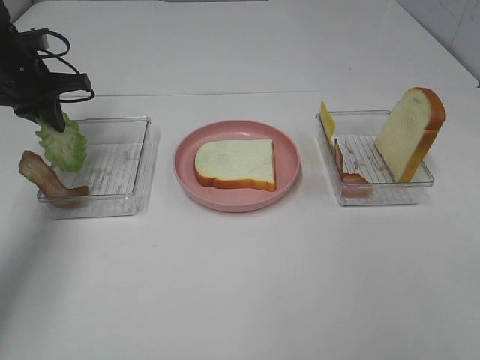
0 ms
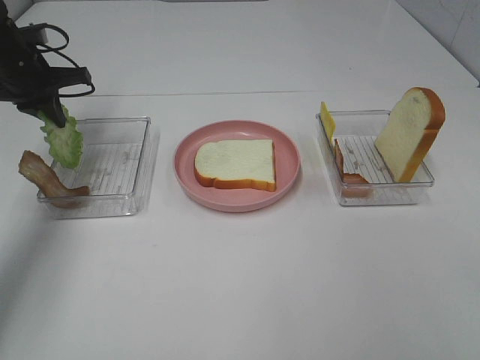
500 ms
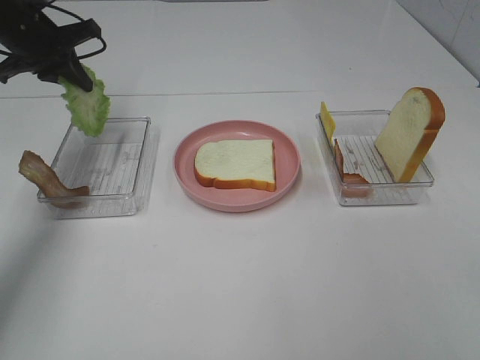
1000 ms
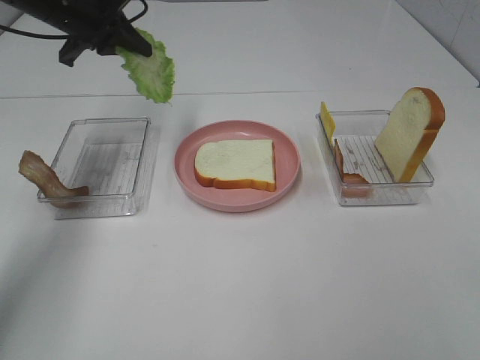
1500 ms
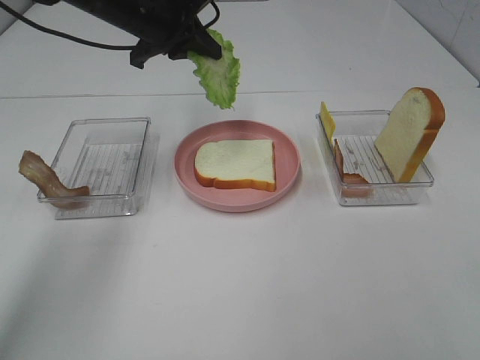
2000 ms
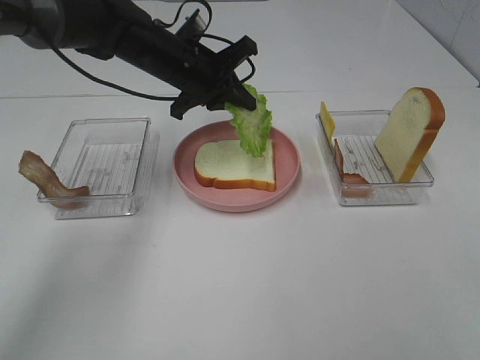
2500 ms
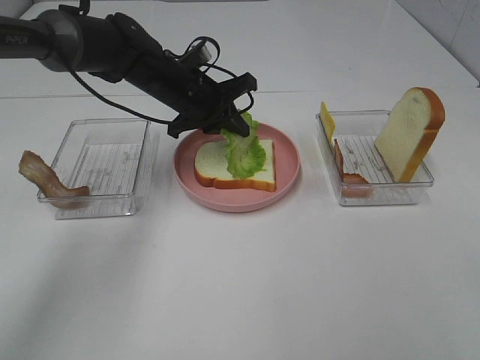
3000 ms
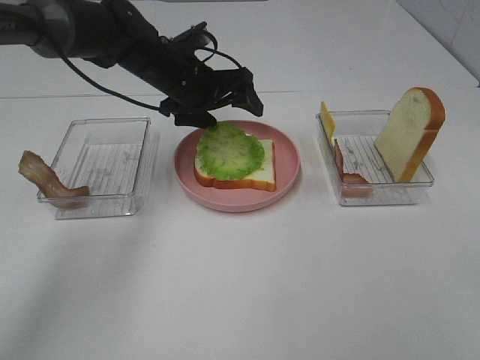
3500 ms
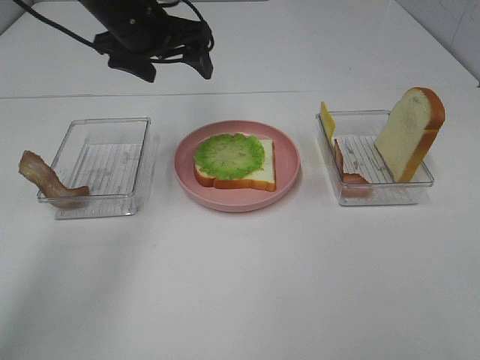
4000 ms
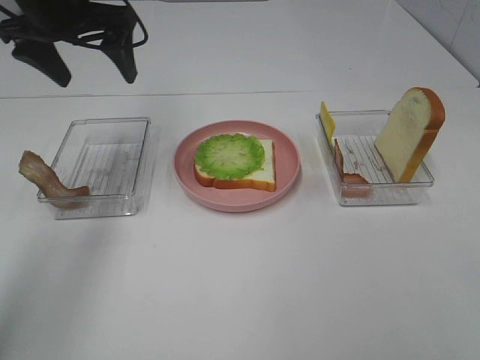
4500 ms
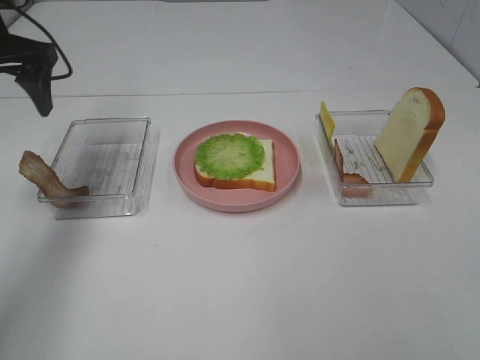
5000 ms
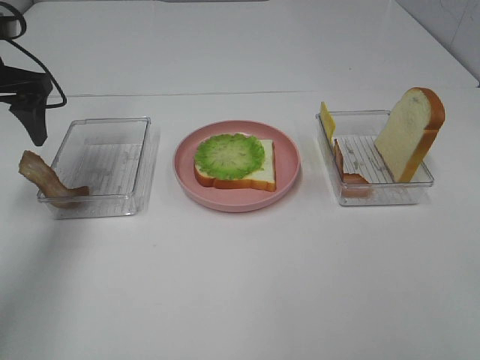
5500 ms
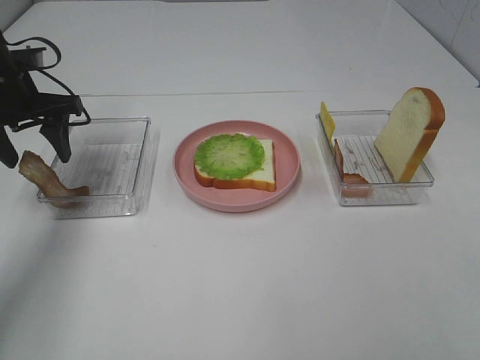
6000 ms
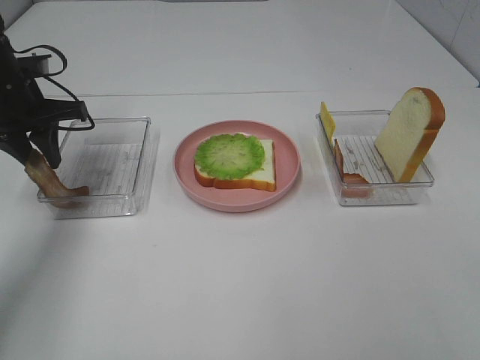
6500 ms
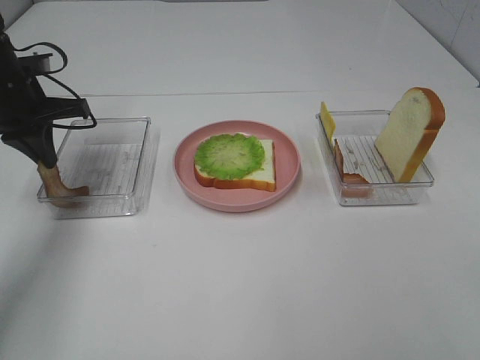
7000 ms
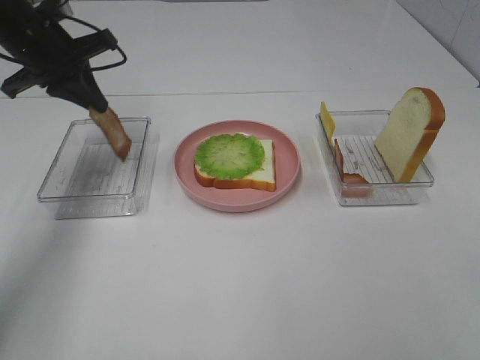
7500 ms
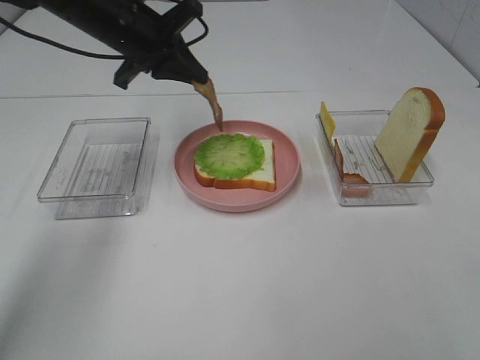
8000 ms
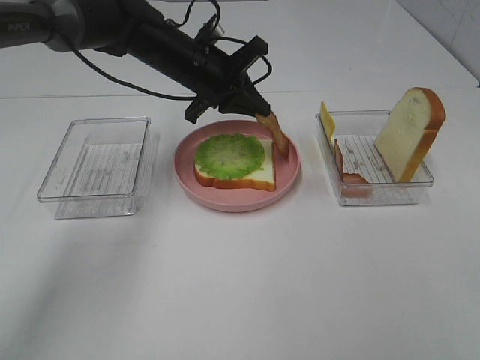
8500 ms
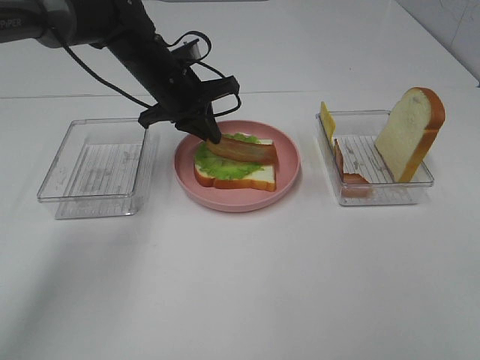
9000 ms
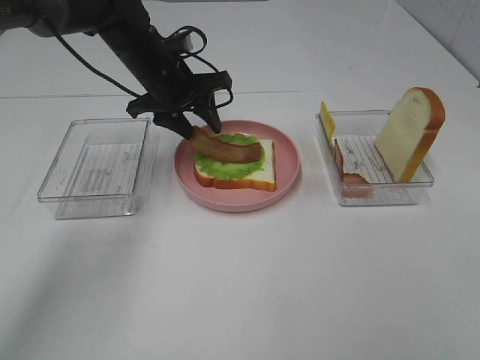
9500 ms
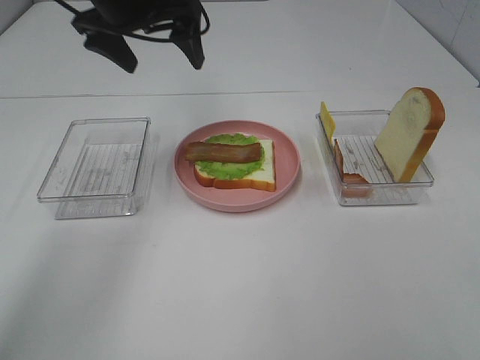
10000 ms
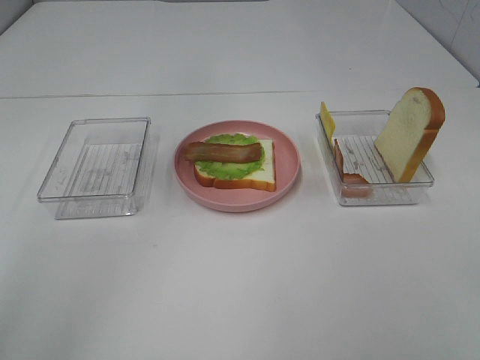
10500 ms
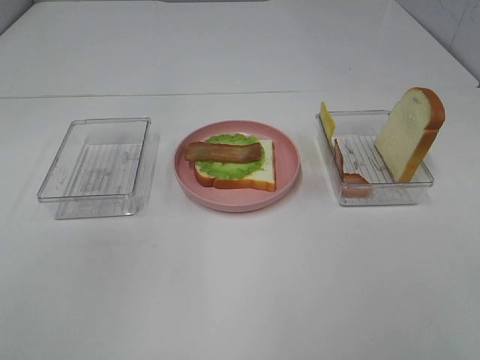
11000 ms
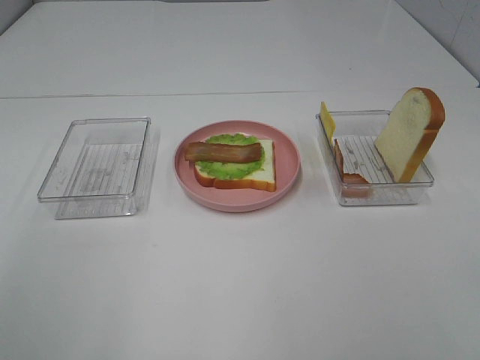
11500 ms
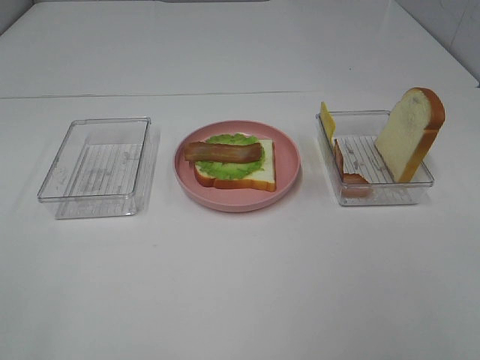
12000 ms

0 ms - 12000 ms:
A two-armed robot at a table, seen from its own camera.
Task of the whole recording: Make sandwiches.
Step, 0 ms - 3500 ms: Left hand:place the lettuce slice on the bread slice.
Step, 4000 ms - 7000 ms: Left hand:grab the bacon.
Step, 7500 ms - 9500 ms: Left hand:place bacon on lettuce slice.
0 ms - 2000 ms: The left gripper is displaced to the right by roughly 20 cm.
2000 ms - 4000 ms: The left gripper reaches approximately 10 cm downward, then returns, and opens up.
4000 ms - 6000 ms: The left gripper goes some 15 cm to the left and downward.
6000 ms - 8000 ms: The left gripper is displaced to the right by about 15 cm, and closes.
8000 ms - 10000 ms: The left gripper heads upward, covering approximately 5 cm, and opens up.
10000 ms - 12000 ms: The left gripper heads backward and to the left, covering some 50 cm.

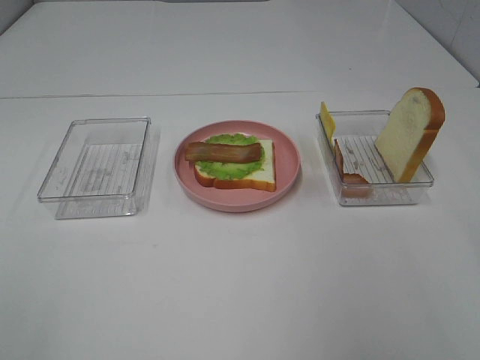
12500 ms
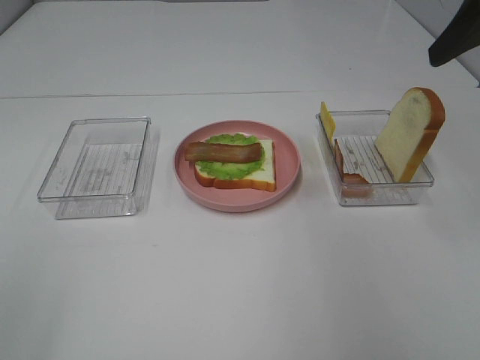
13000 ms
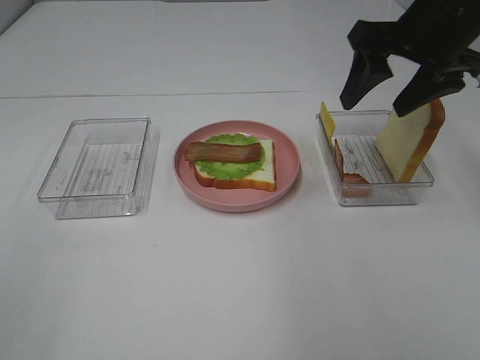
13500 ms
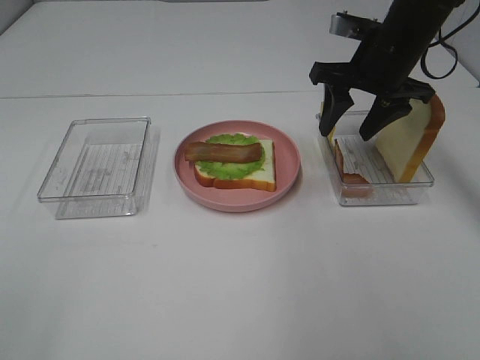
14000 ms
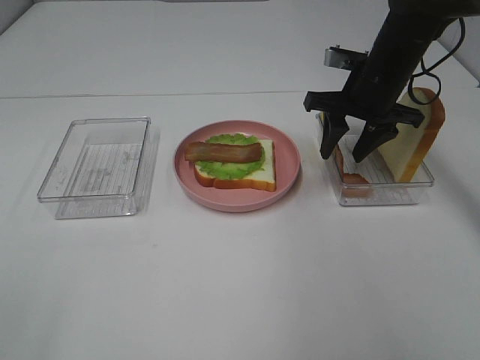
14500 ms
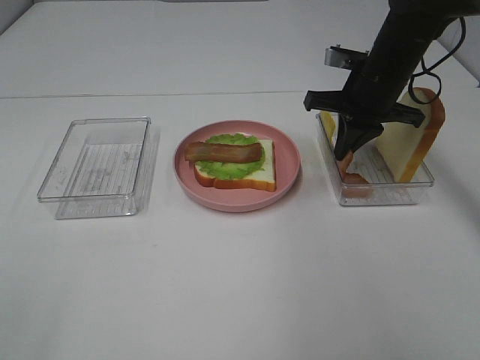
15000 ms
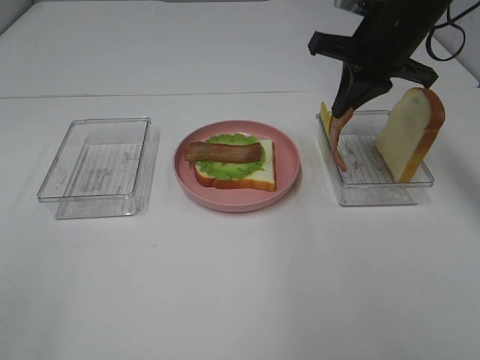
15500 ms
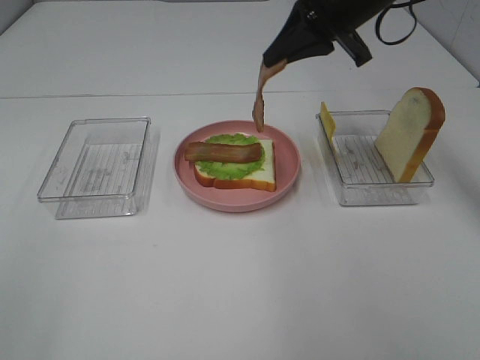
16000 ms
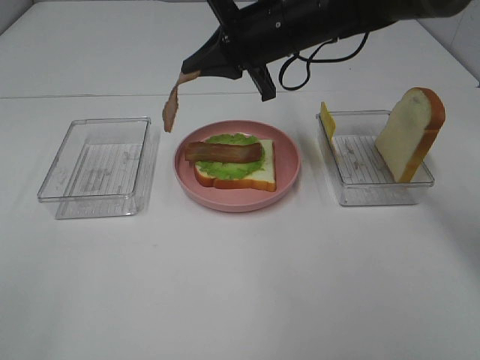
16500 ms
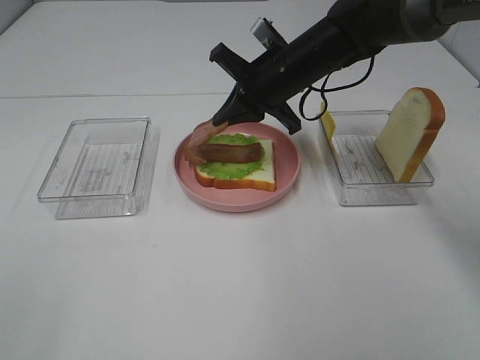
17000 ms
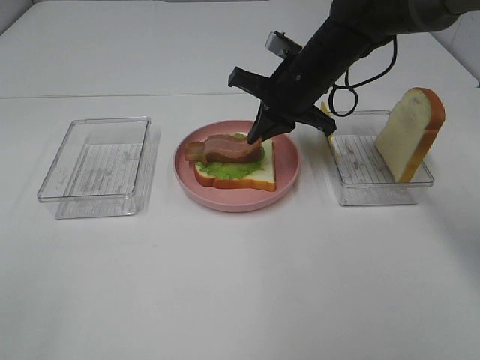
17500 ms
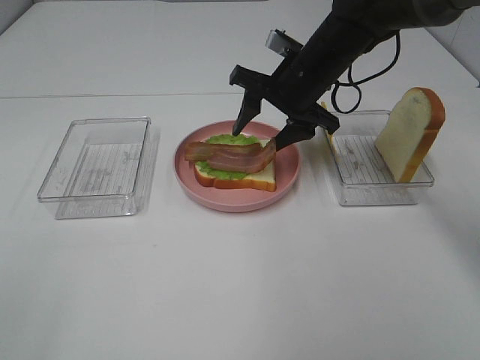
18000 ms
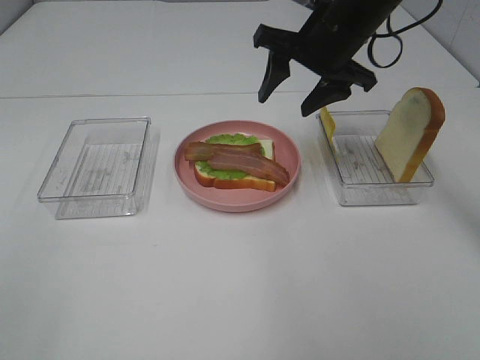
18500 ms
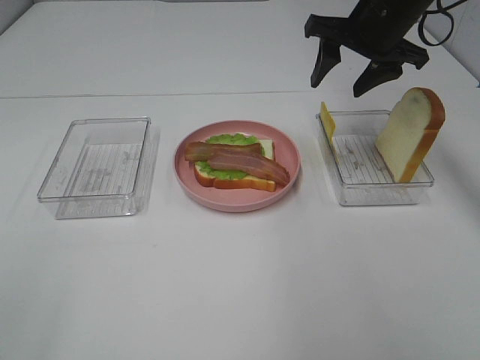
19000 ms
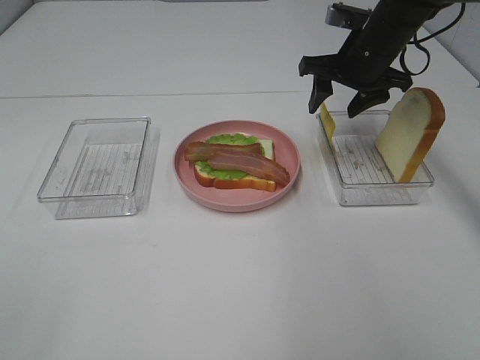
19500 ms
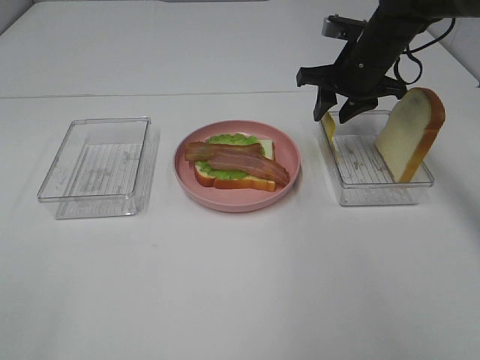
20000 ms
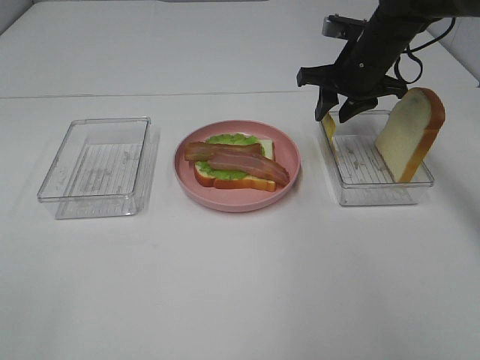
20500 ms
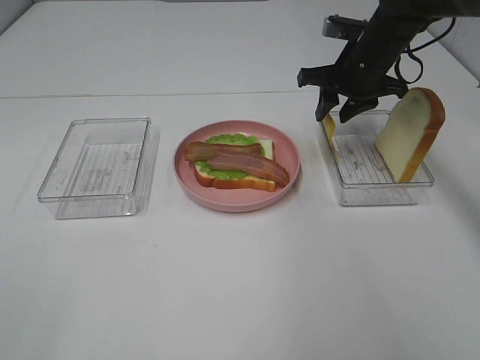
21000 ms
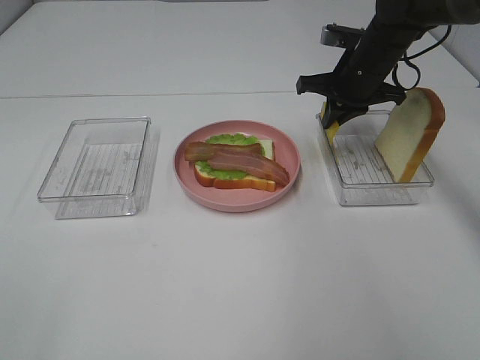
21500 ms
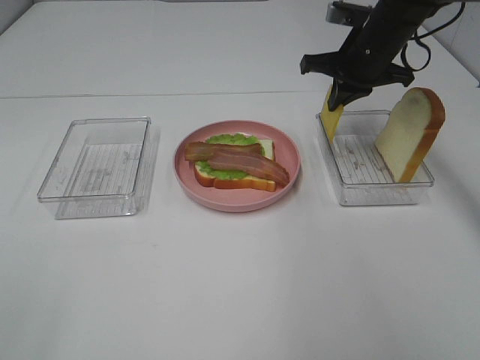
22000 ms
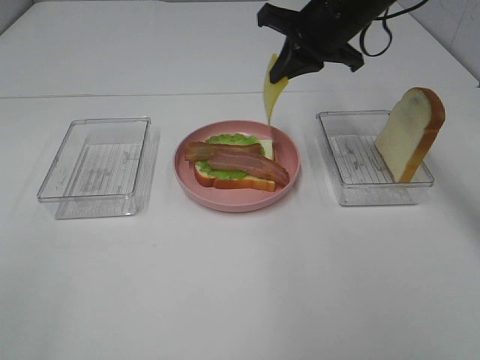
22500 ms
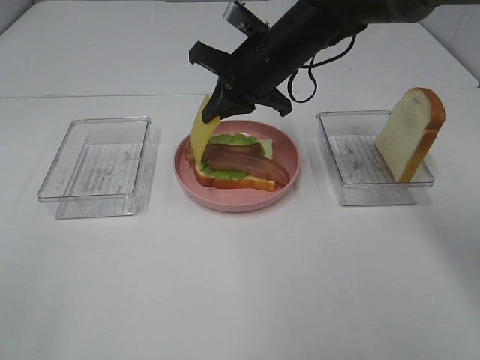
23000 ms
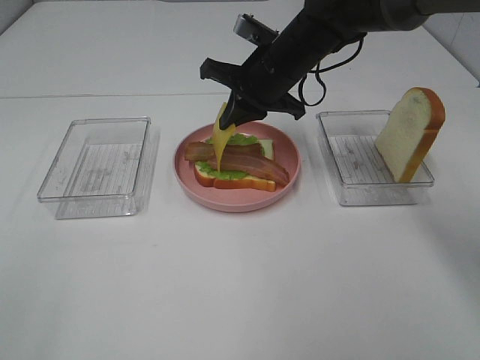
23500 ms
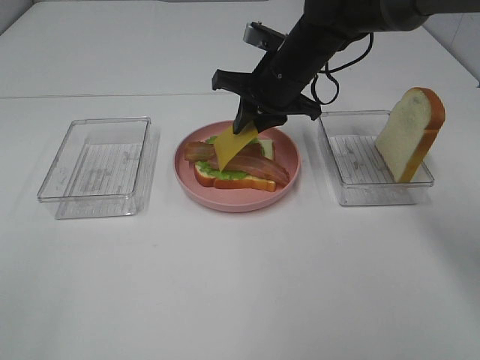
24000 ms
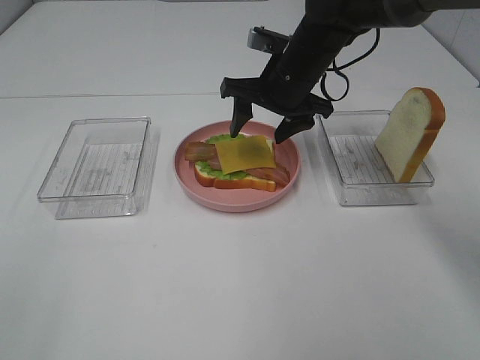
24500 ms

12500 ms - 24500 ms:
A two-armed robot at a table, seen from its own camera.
Task of the whole recording: Make sandwiches.
Step, 12500 ms - 15000 ms: Right hand:grab the bacon.
Step, 15500 ms - 18000 ms: Right hand:place bacon on bacon.
Step, 18500 ms - 21500 ms: Right hand:grab the cheese slice.
12500 ms - 14500 ms: The right gripper heads forward and downward, covering about 35 cm.
14500 ms - 16500 ms: The right gripper heads to the left, covering approximately 10 cm, and closes up.
16500 ms - 18500 ms: The right gripper shifts roughly 5 cm to the right, and opens.
18500 ms - 20500 ms: The right gripper moves downward, forward and to the right, about 10 cm.
20500 ms - 22500 ms: The right gripper travels upward and to the left by approximately 10 cm, and closes.
22500 ms - 24500 ms: The right gripper travels downward by roughly 5 cm, and opens its fingers.

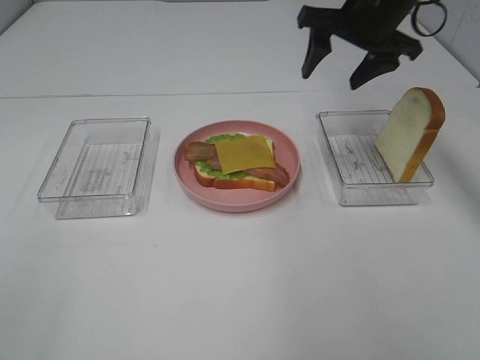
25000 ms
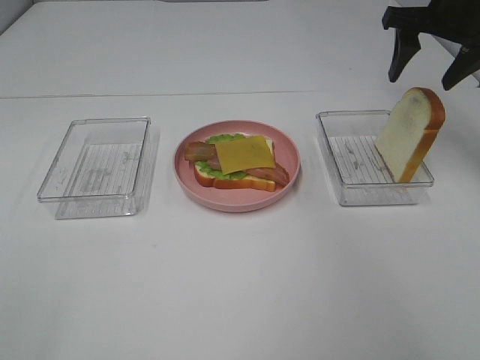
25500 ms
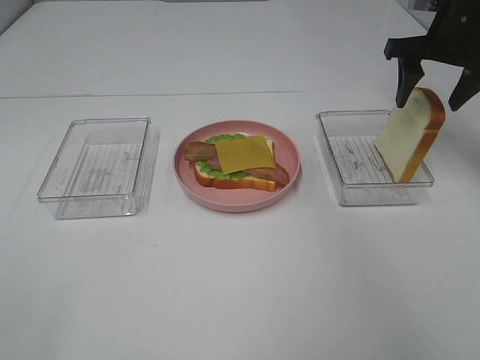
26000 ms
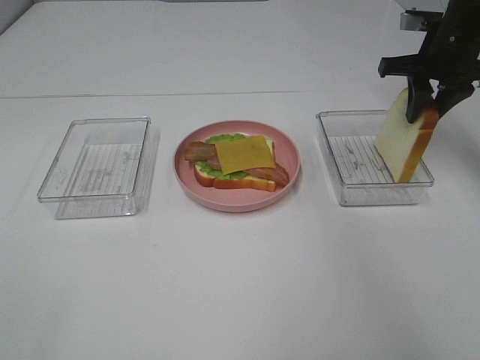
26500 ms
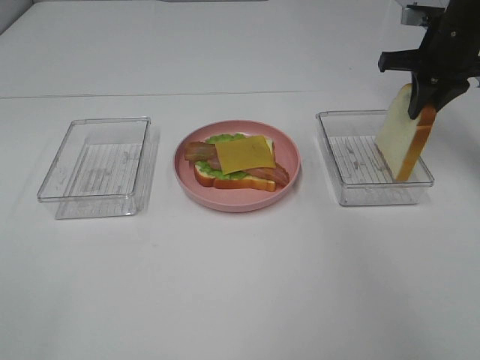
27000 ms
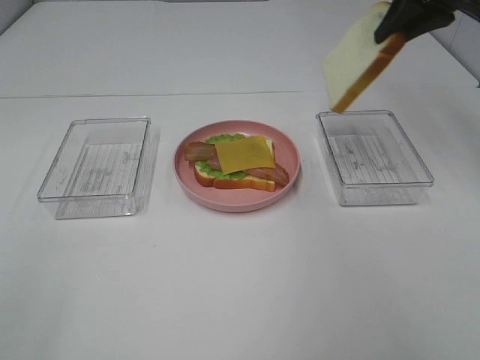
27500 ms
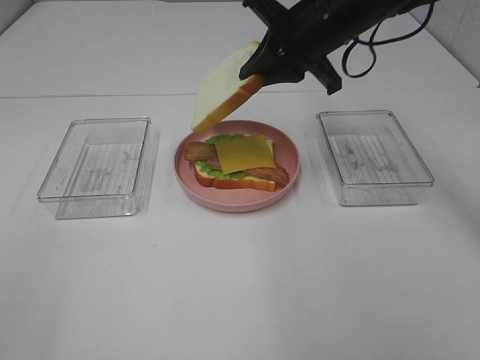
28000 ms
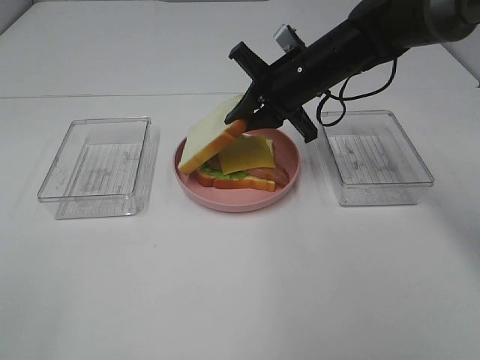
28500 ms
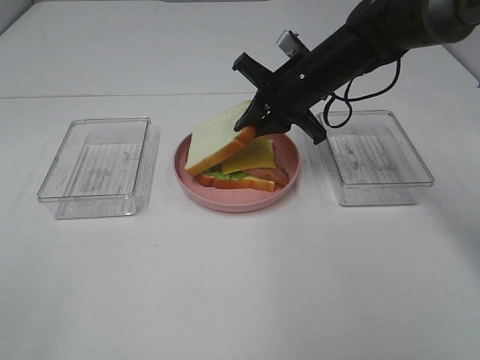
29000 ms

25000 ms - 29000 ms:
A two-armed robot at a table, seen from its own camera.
Task of the whole recording: Make sandwiches.
Step, 25500 ms - 27000 ms: Right hand:grab the bread slice.
25000 ms - 27000 ms: The right gripper heads to the right, covering about 10 cm, and closes up.
27000 ms - 29000 ms: The right gripper is displaced to the left and downward by some 20 cm.
